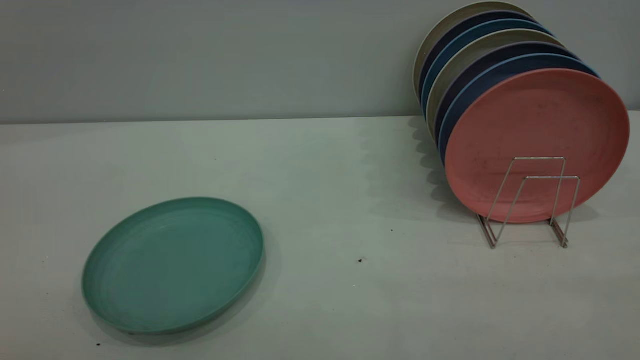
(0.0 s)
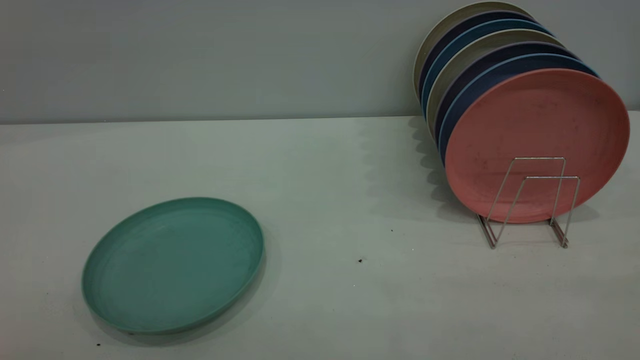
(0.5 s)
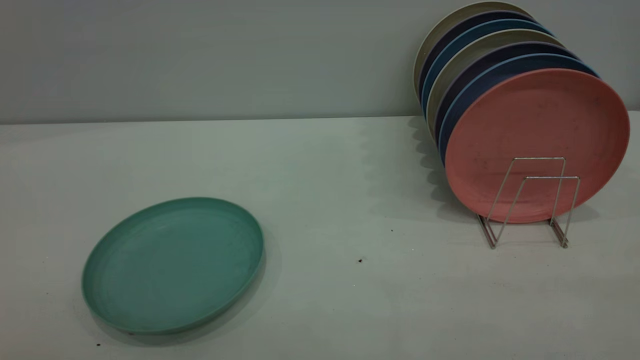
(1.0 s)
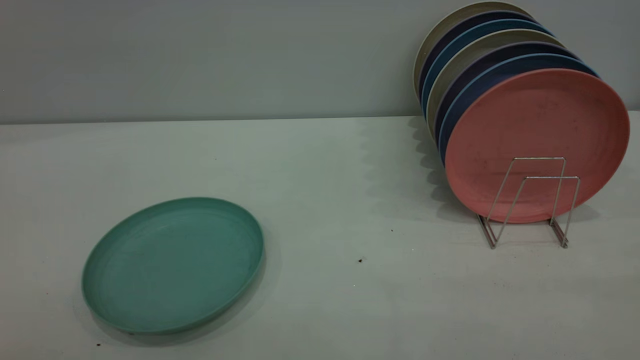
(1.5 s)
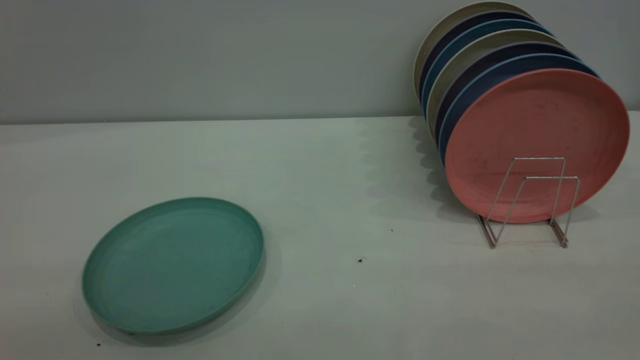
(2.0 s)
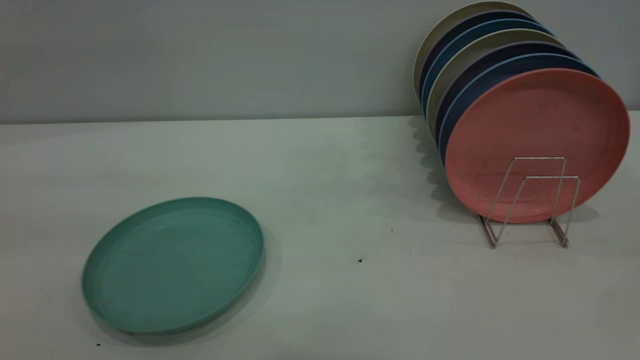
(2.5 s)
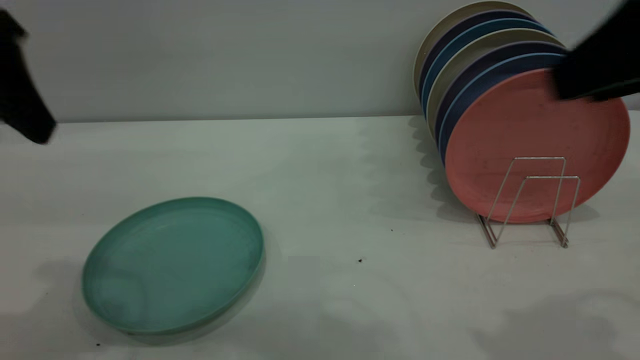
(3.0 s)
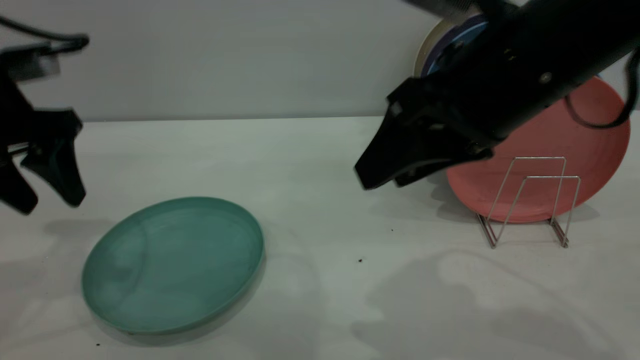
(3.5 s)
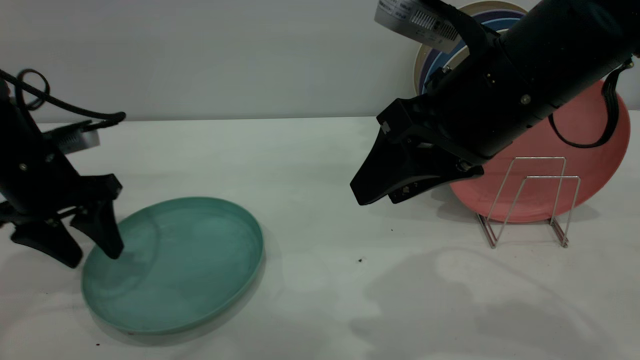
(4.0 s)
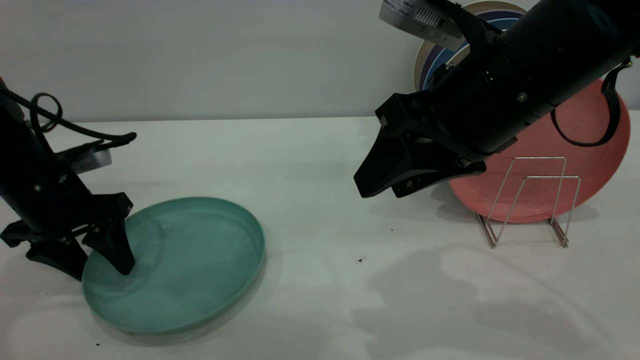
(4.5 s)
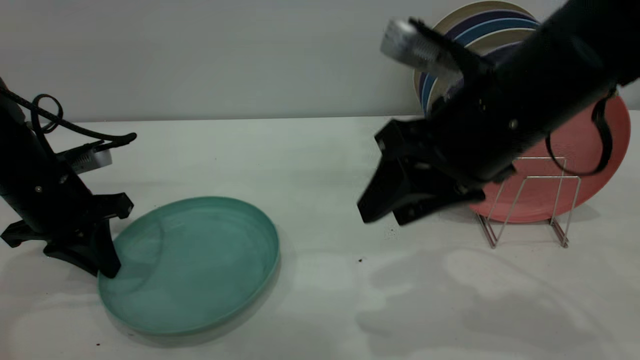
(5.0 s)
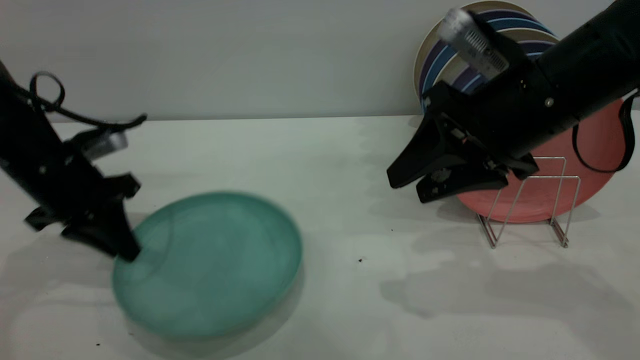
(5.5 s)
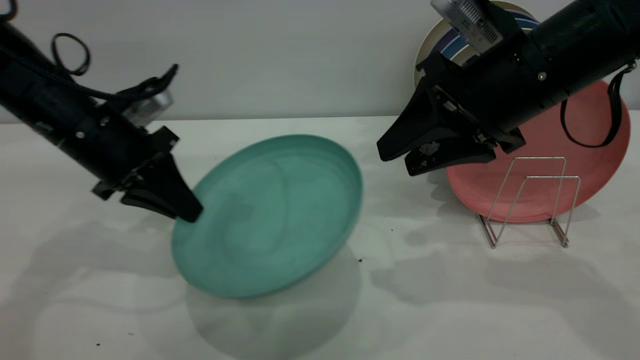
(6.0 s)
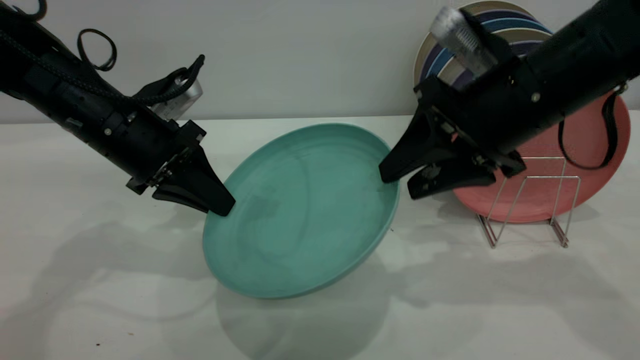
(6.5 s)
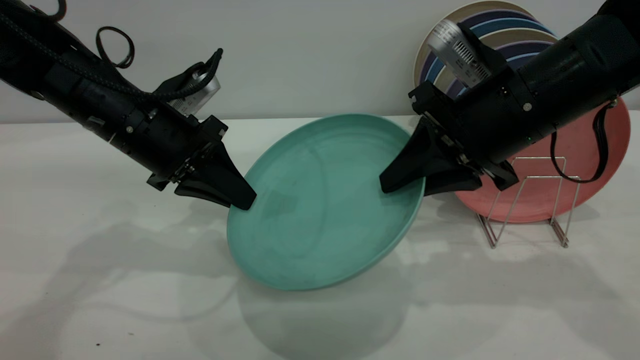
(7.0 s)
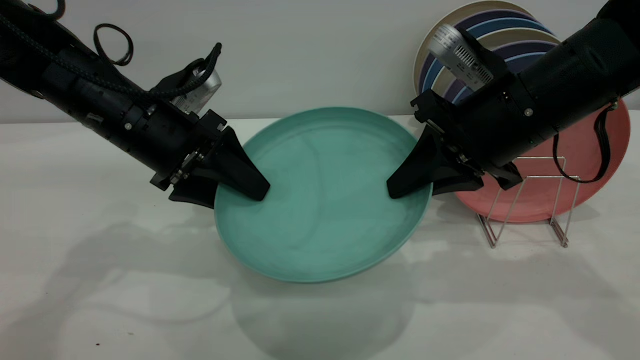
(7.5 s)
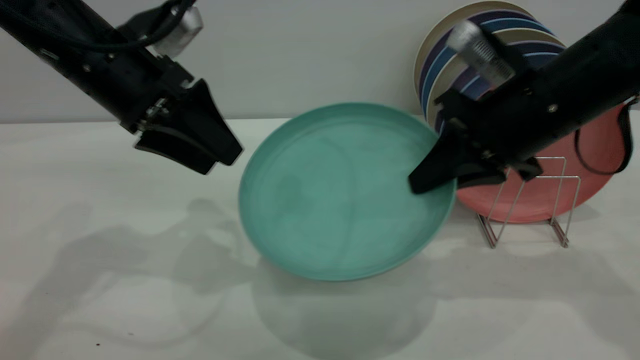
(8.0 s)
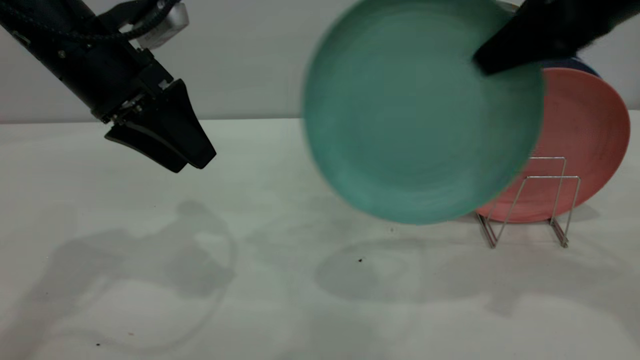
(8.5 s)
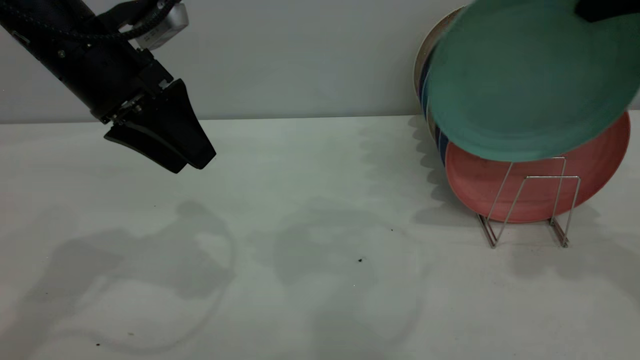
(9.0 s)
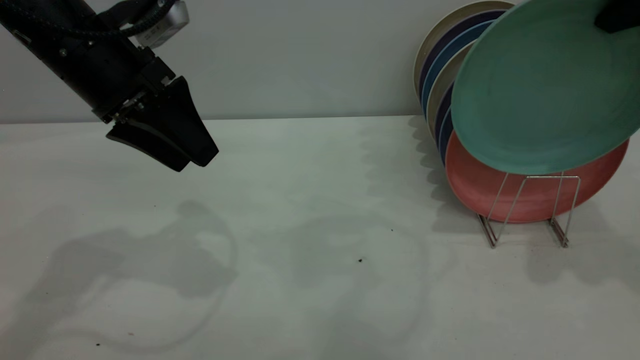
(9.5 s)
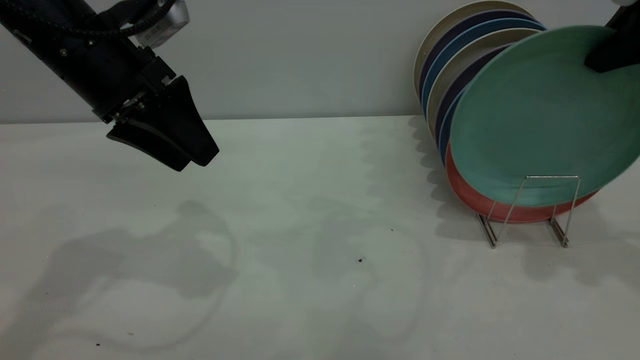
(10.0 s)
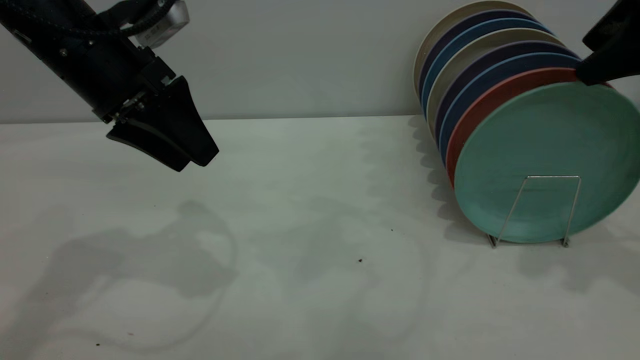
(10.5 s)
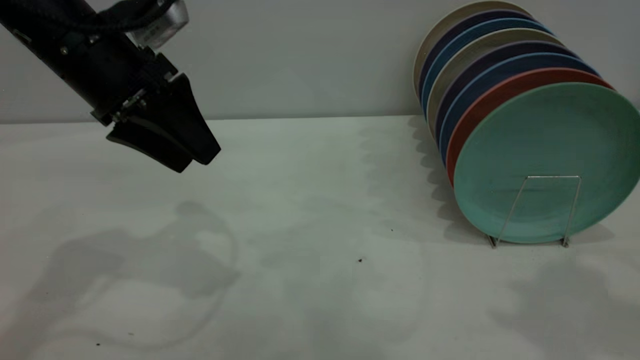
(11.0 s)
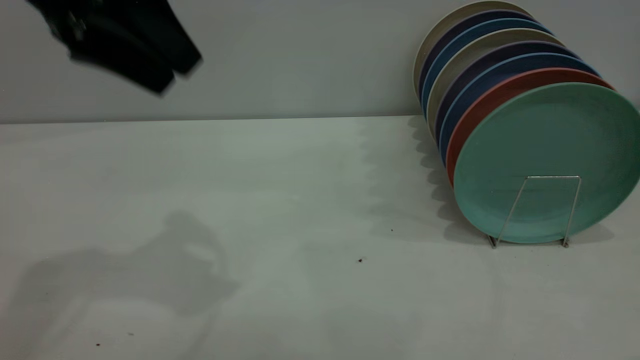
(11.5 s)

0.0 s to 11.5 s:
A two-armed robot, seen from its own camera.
Task of the whole recording: the left gripper grasp the green plate, the left gripper pass the green plate to the right gripper, and the right gripper place the green plate on the plate rack.
Step, 0.0 to 5.5 s: Pick up the plate with the left gripper.
Step, 6.0 to 8.0 s: Pass the plate from the left gripper to the right gripper.
Step, 8.5 to 10.5 s: Place the plate on the shelf.
2.0 to 4.0 s: The left gripper heads forward and downward, covering some 40 cm. Meanwhile the right gripper travels forward, to the left and downward by some 35 cm.
4.0 to 6.0 s: The left gripper travels to the right by approximately 5 cm, and closes its fingers. Meanwhile the right gripper moves forward, approximately 5 cm.
6.0 to 7.5 s: The right gripper closes its fingers; the left gripper opens its fingers.
7.5 to 9.5 s: The right gripper goes approximately 20 cm to the right and upward. The left gripper moves upward, some 10 cm.
9.5 to 11.5 s: The right gripper shifts roughly 25 cm backward and upward, and opens. The left gripper moves upward, some 10 cm.

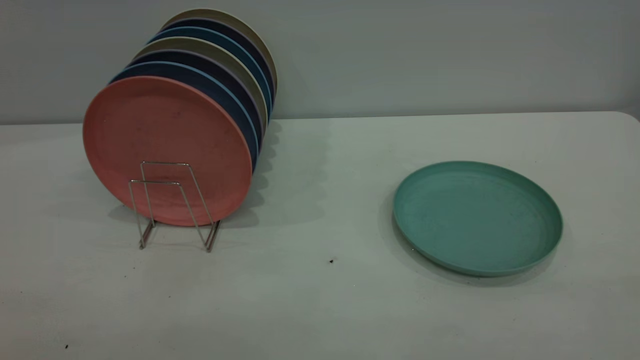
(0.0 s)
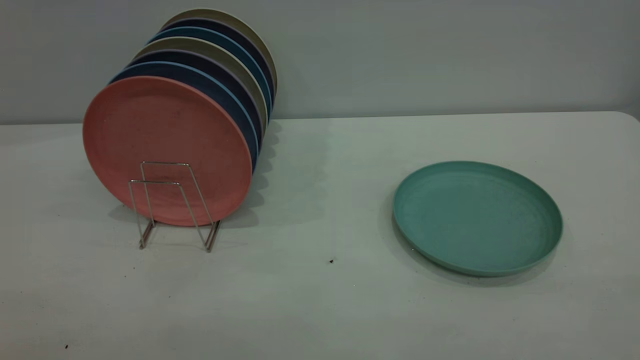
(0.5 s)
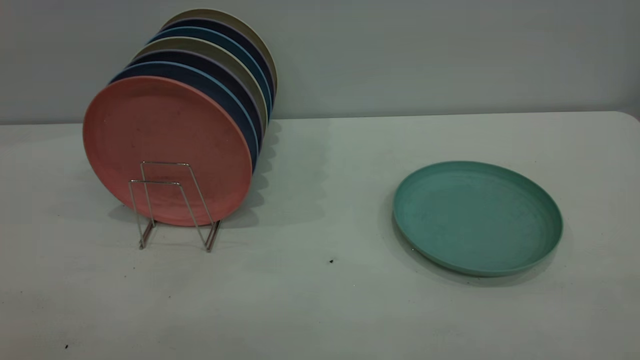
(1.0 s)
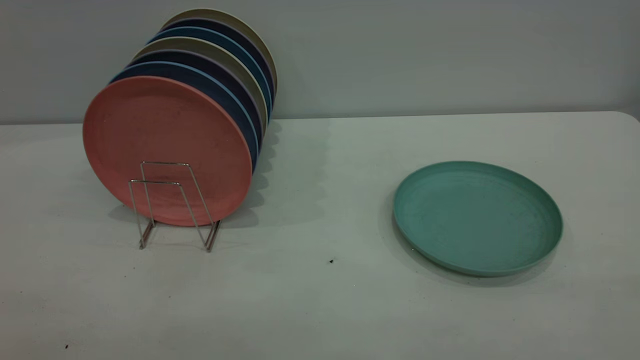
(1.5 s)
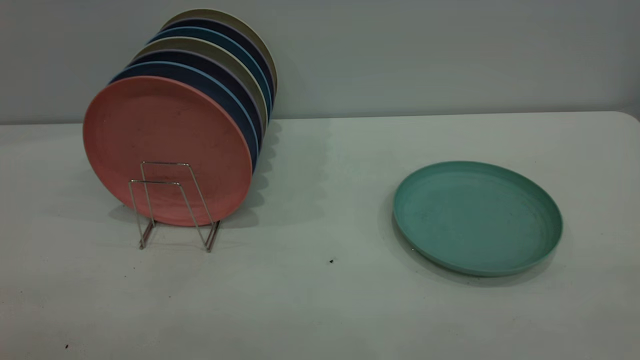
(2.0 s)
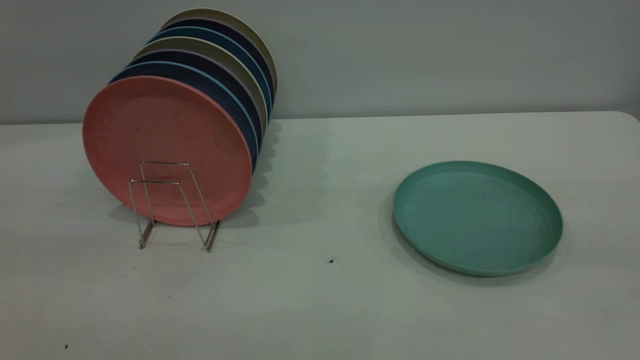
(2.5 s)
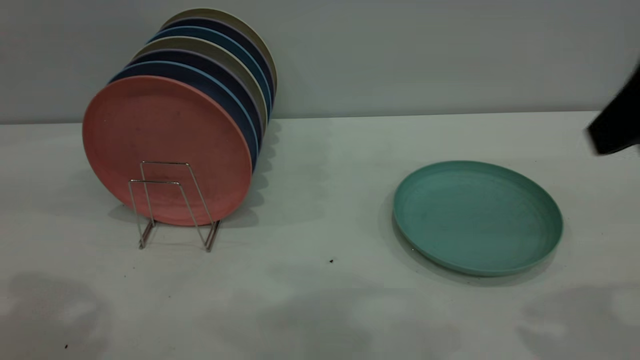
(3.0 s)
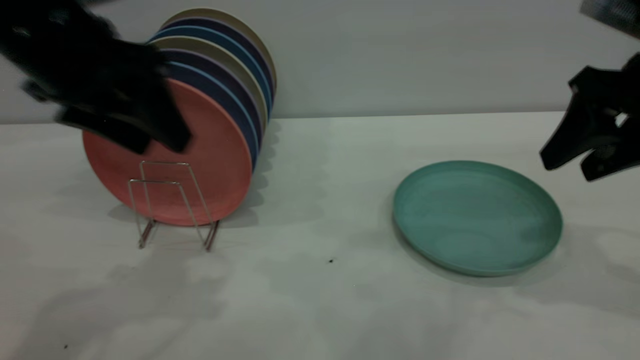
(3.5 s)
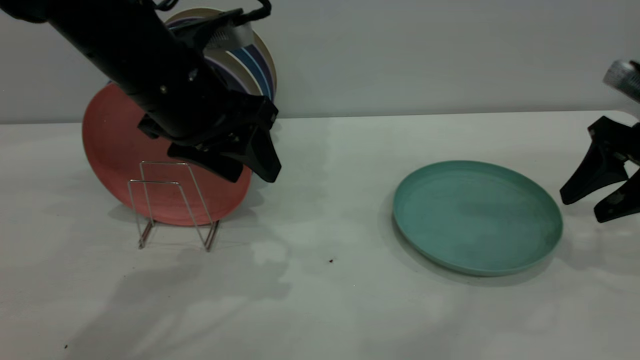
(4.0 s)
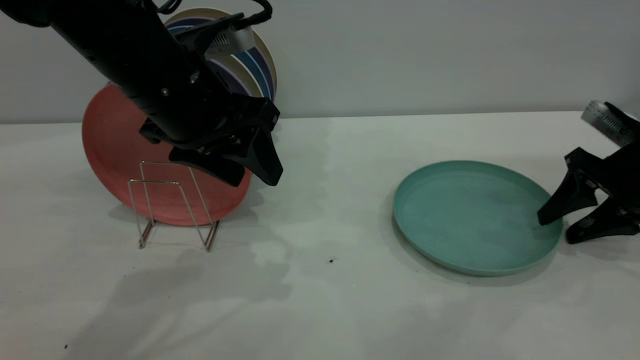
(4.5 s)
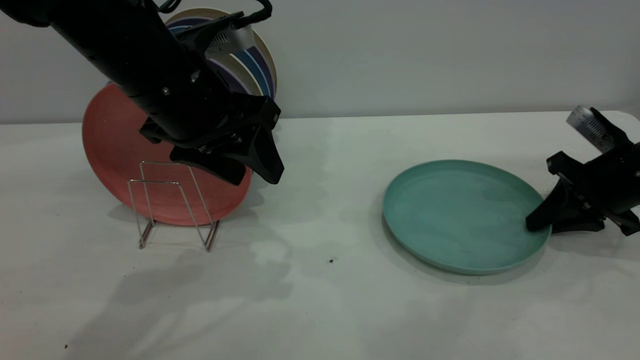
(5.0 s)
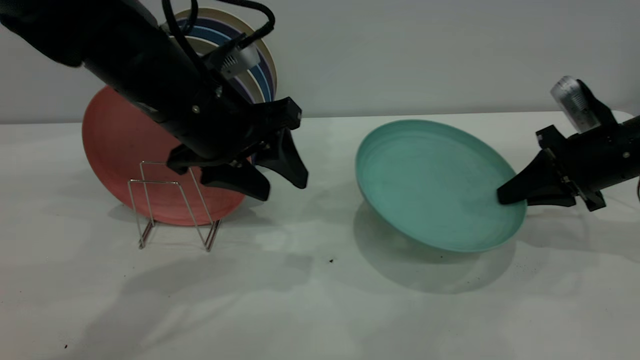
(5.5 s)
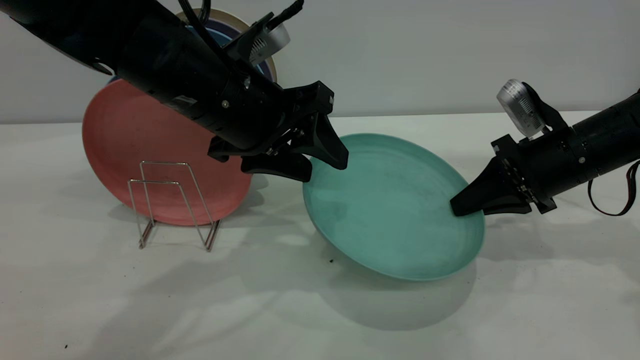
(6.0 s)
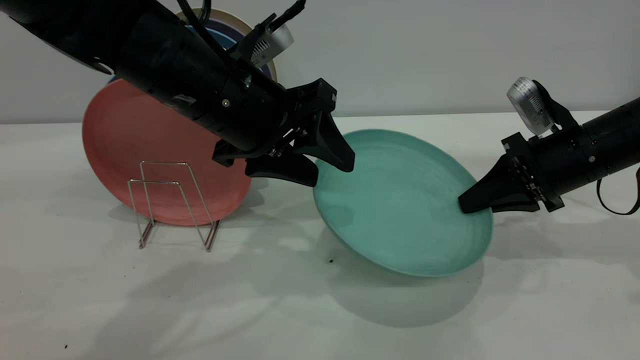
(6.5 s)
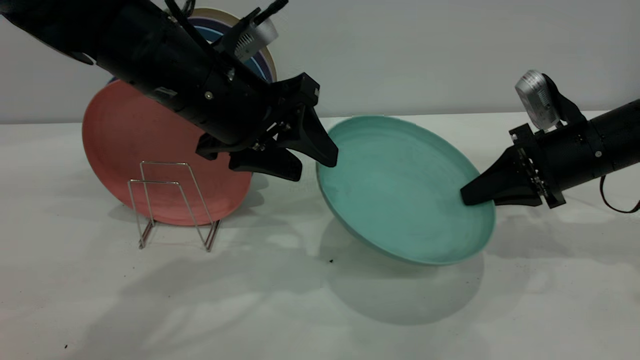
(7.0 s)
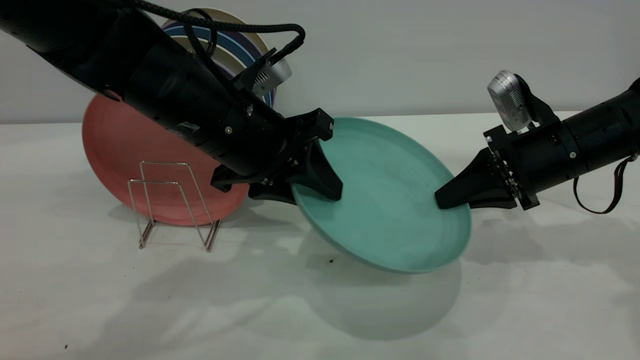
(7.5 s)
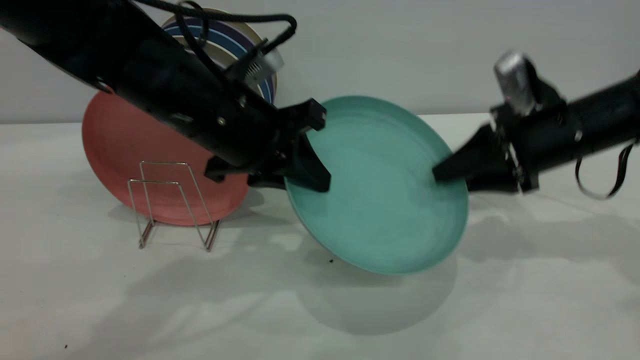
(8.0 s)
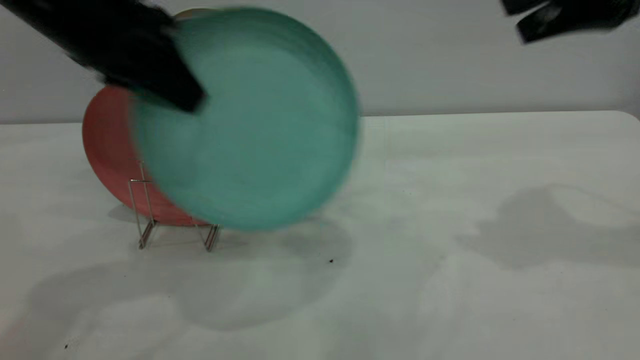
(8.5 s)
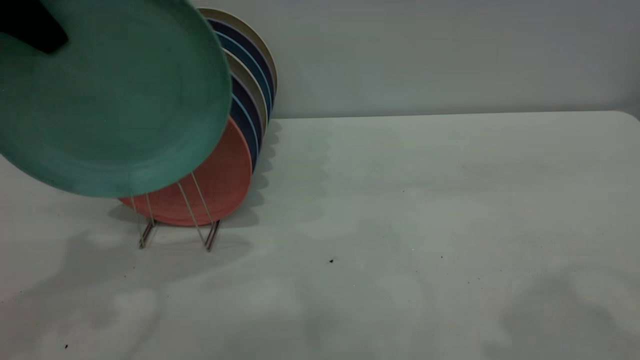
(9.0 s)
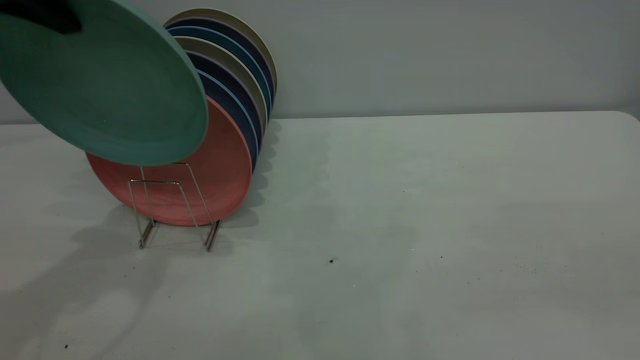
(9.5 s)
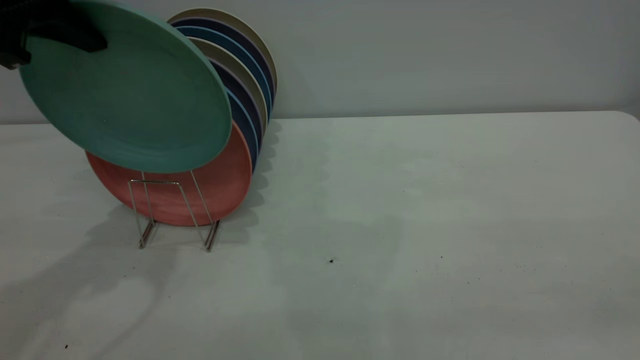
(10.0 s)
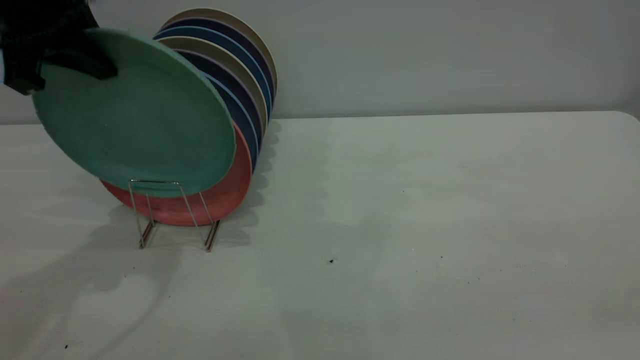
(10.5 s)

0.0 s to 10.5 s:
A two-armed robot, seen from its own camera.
Task of the whole recording: the right gripper grasp the green plate, the right gripper pass the green plate to the left gripper, and the left gripper place the green plate on the plate rack.
Step, 0.0 to 5.0 s: Pick up the plate with the right gripper.
Step, 5.5 to 8.0 s: Pass the plate from the right gripper to the left gripper.
2.0 to 4.0 s: The right gripper moves forward and downward, some 40 cm. The left gripper shifts about 40 cm forward and to the right.
4.0 to 6.5 s: The right gripper heads to the left, covering about 10 cm, and closes.
6.5 to 8.5 s: The left gripper shifts roughly 15 cm to the left and upward, and closes its fingers, while the right gripper heads upward, covering some 20 cm, and opens.
8.5 to 10.5 s: The right gripper travels backward by about 30 cm.
